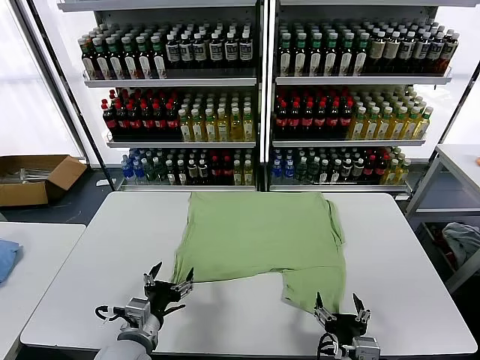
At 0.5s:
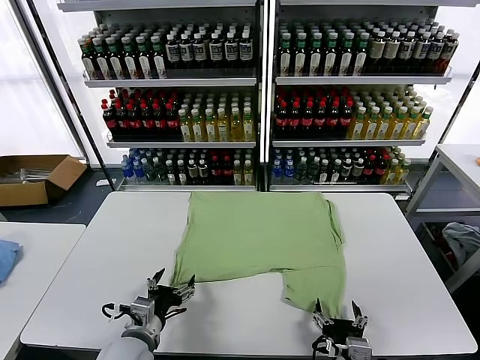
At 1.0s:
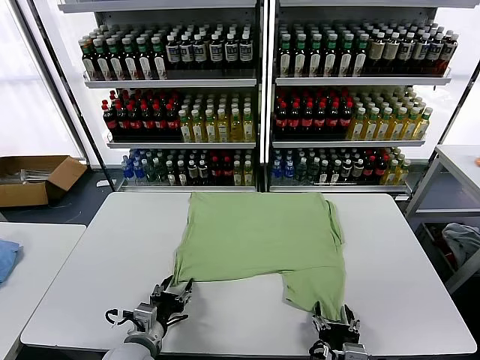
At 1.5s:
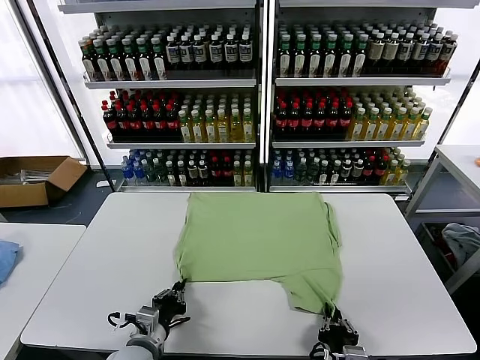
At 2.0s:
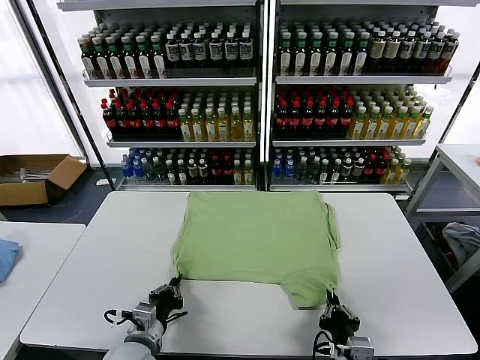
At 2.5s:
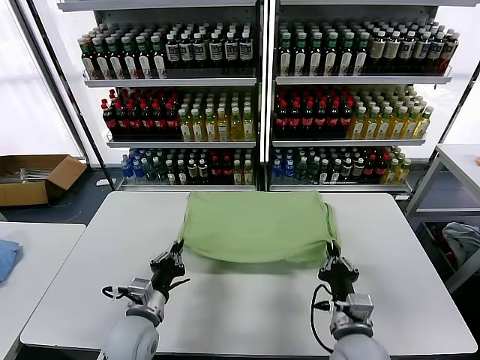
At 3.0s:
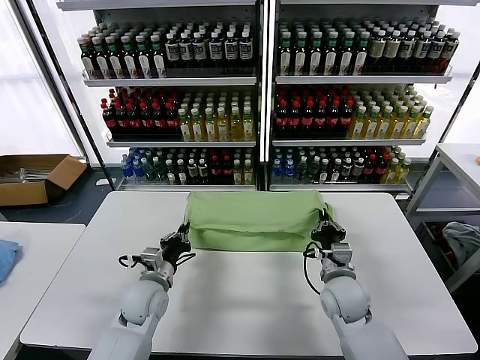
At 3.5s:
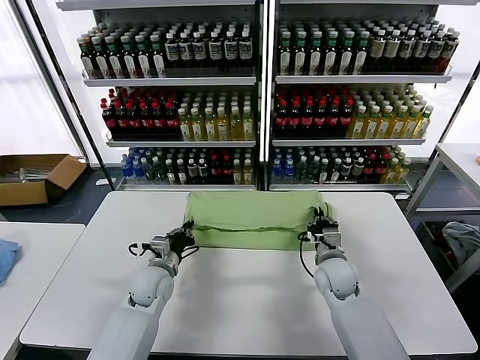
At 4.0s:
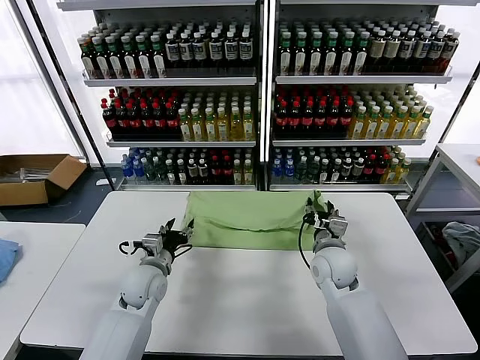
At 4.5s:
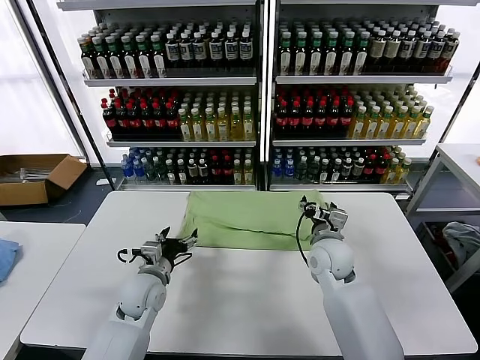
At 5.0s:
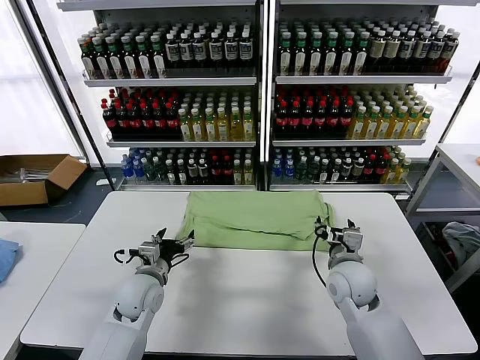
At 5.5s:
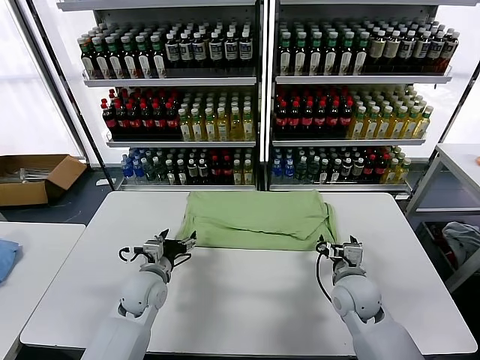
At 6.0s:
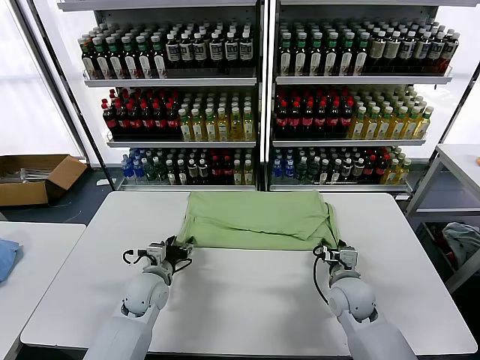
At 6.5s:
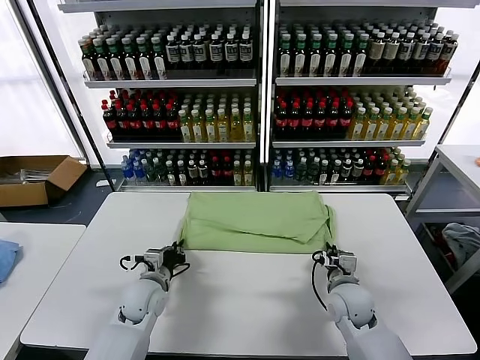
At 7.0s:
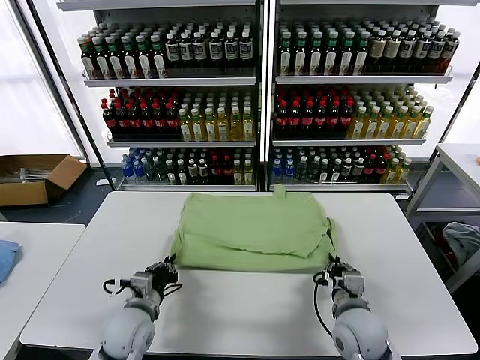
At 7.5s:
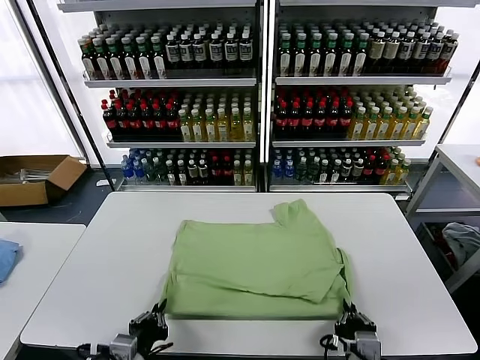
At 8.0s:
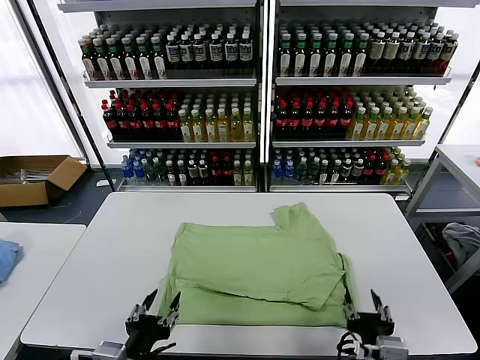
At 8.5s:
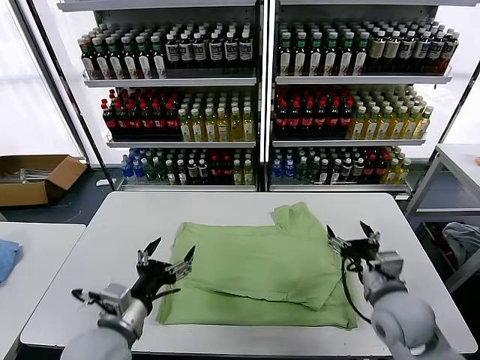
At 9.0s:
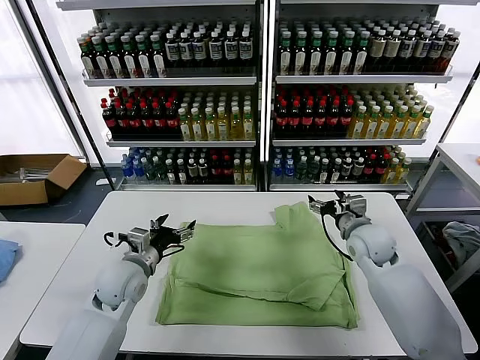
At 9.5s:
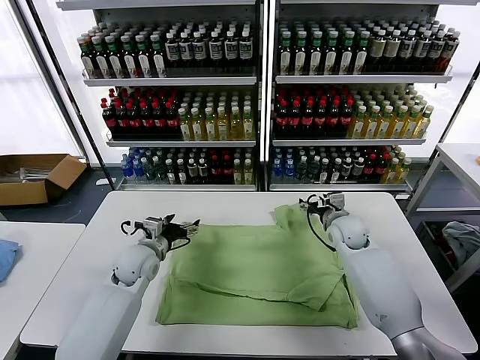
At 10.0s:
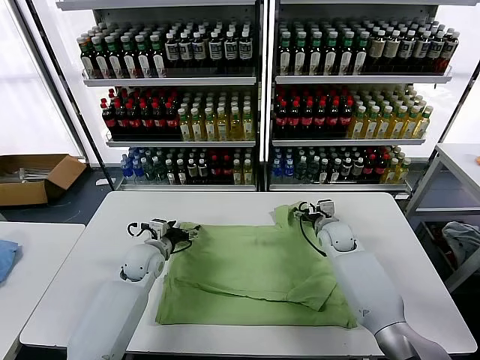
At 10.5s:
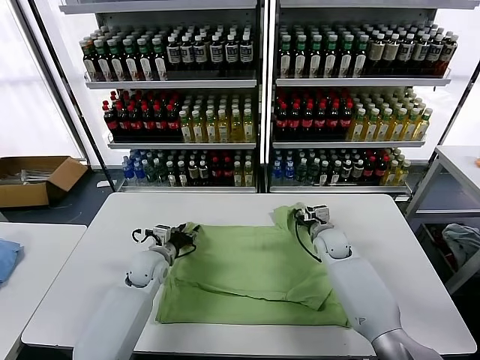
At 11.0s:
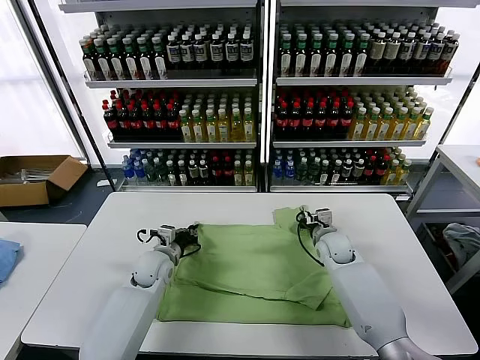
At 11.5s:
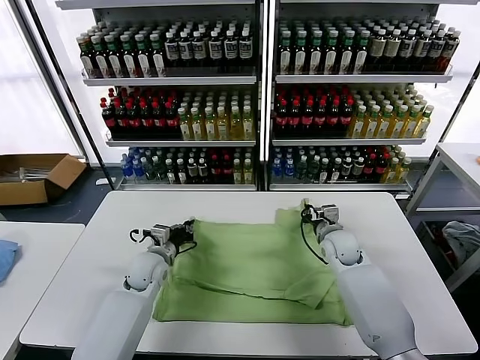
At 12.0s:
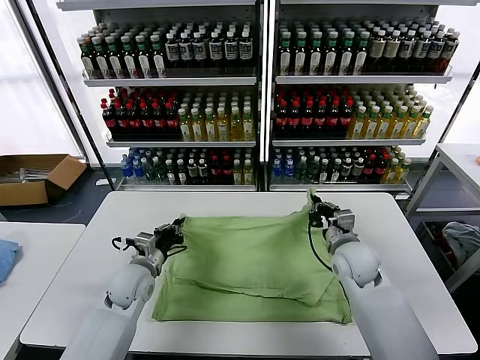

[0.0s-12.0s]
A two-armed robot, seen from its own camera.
Task of the whole recording: fold and organize the clothes.
Step, 0.0s to 1.5s: use both grippers simultaneously to clamp the lower edge of the clothing fabric.
Step, 2.0s to 7.5s: Drag the clothes downward with both gripper.
Step, 8.0s to 11.0s: use both grippers simultaneously to clamp the upper edge of the clothing fabric.
2.0s to 4.0s: The right gripper travels forward by some 25 cm, and opens its fingers; the left gripper travels forward by about 15 cm, and opens its fingers.
4.0s to 6.0s: The left gripper closes up, while the right gripper goes some 10 cm downward and backward, and closes up.
6.0s to 8.0s: The two grippers go approximately 25 cm backward and upward. The right gripper opens its fingers. Meanwhile the left gripper closes, then opens again.
8.0s to 10.0s: The grippers both shift forward by some 35 cm.
10.0s to 12.0s: The left gripper shifts about 5 cm backward, and closes, while the right gripper moves backward and upward, roughly 15 cm, and closes its fingers.

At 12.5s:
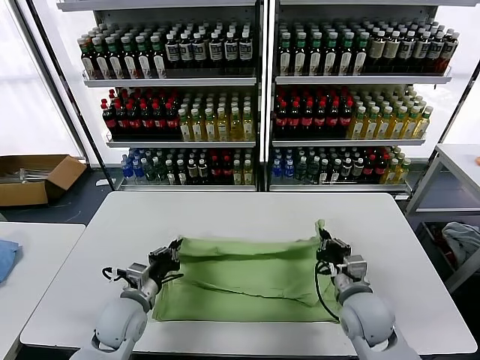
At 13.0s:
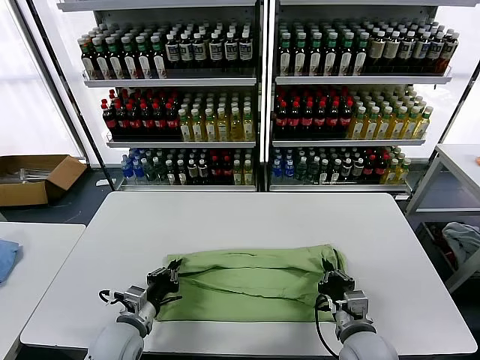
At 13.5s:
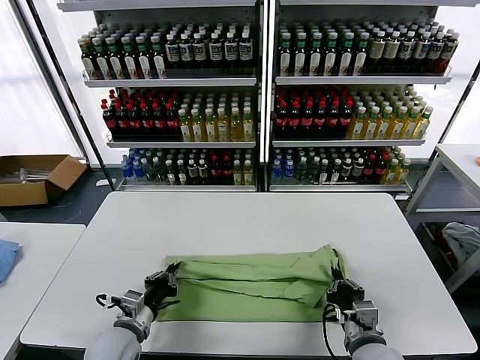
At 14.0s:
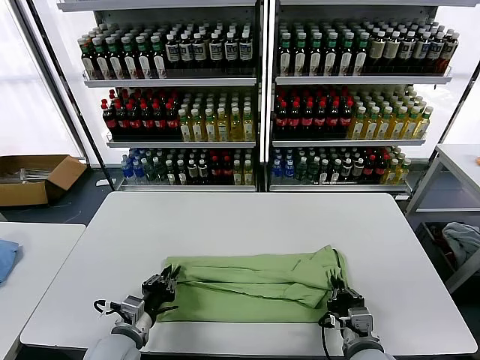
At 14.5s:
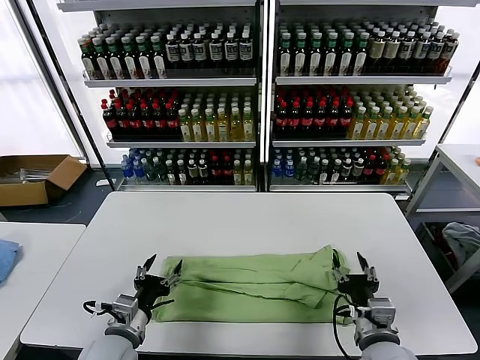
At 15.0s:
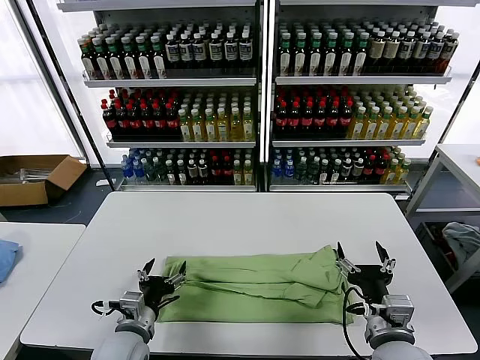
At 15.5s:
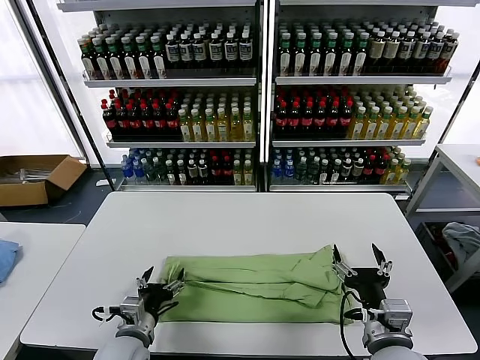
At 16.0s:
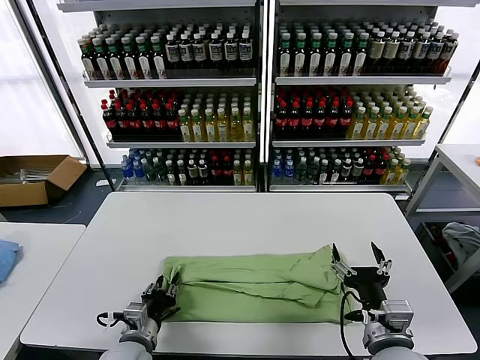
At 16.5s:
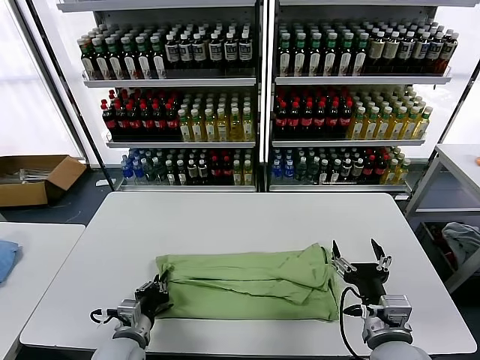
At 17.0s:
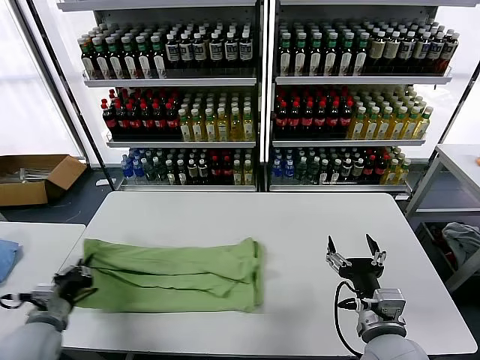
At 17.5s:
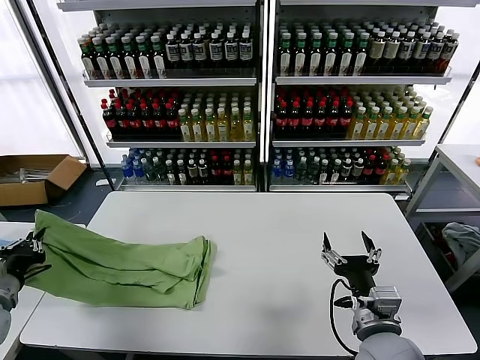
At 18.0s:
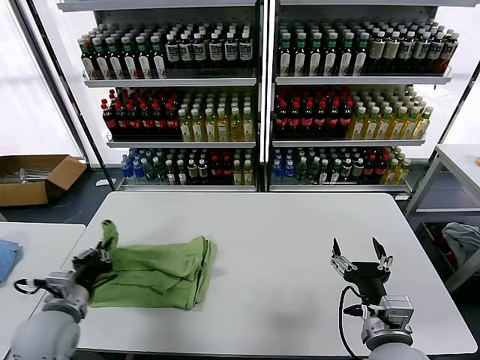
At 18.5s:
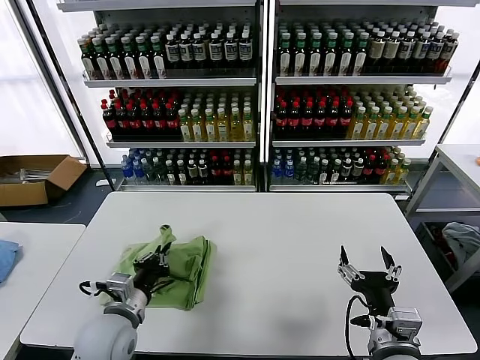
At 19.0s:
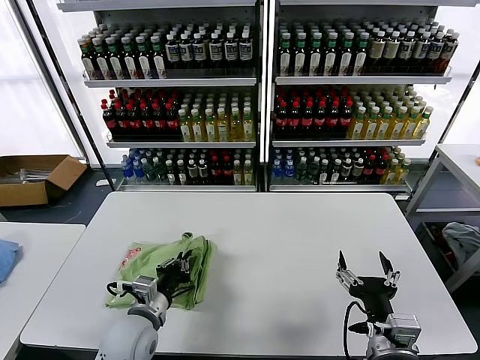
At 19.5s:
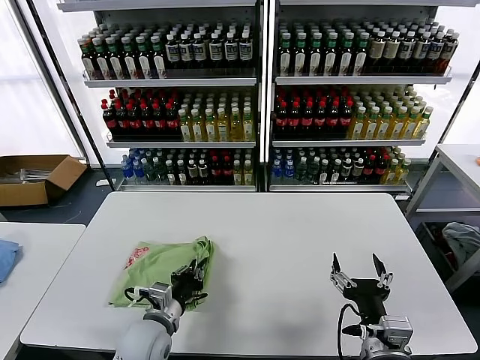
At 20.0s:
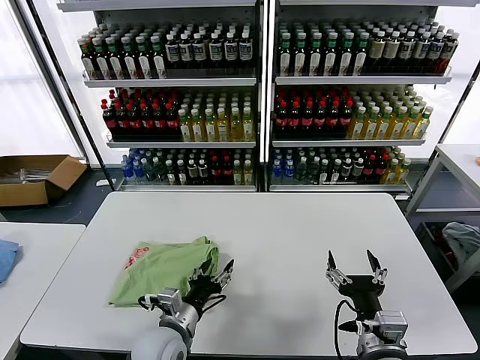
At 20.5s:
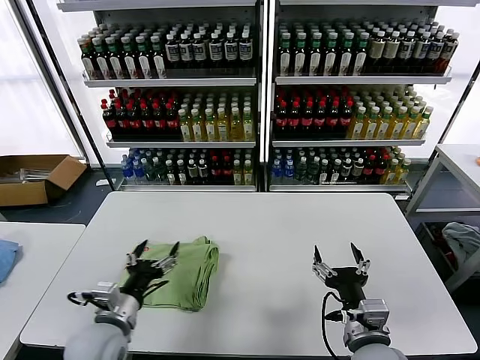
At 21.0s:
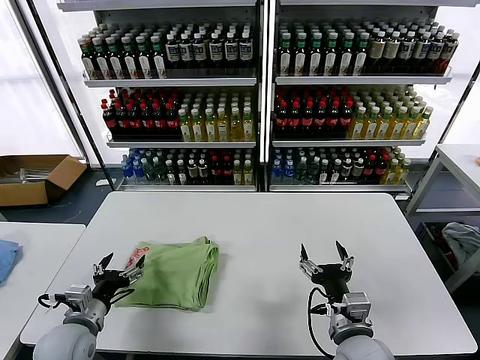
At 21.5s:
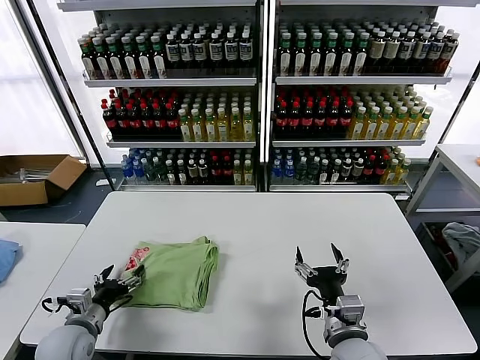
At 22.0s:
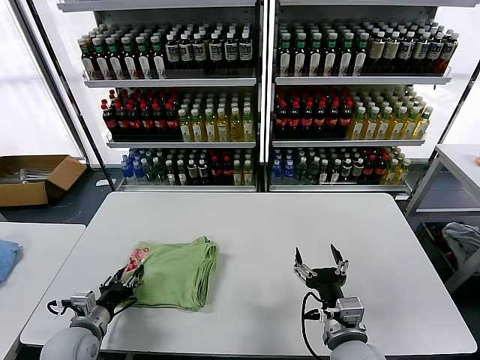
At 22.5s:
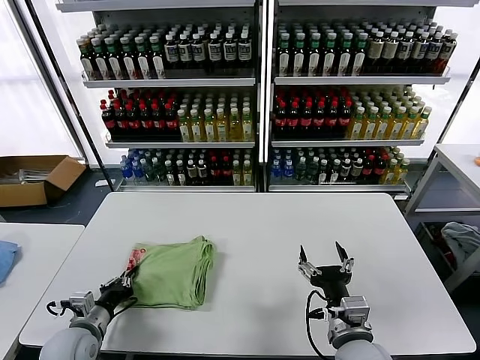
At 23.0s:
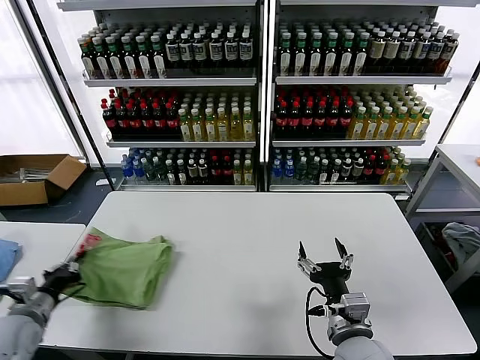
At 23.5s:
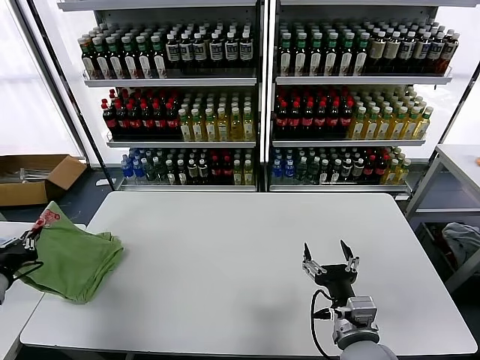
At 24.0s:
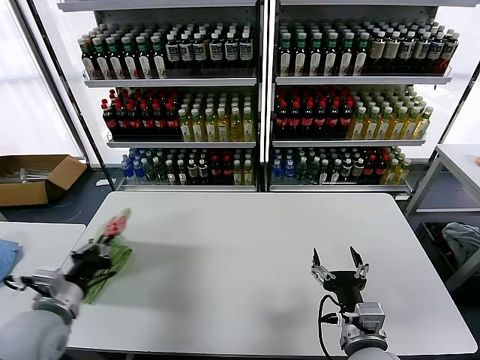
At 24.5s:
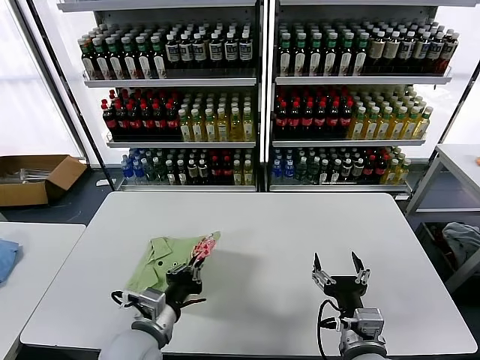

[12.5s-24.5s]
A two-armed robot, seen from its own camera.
Task of the whole recording: fold and organize the clothes.
Step, 12.5s to 14.5s: use both grippers to drag the upper edge of the fabric backward and fold it over the lower edge.
Step, 15.0s to 16.0s: use the left gripper to clamp the left edge of the fabric.
Step, 16.5s to 20.0s: use the left gripper to drag the left edge of the fabric to the left and folds it over the right edge.
12.5s to 14.5s: Both grippers travel together backward, about 10 cm. The left gripper opens up. The right gripper opens.
14.5s to 16.5s: The left gripper moves roughly 5 cm, and closes its fingers.
16.5s to 18.5s: The left gripper is displaced upward by about 10 cm, and reaches approximately 20 cm to the left, then returns.
18.5s to 20.5s: The left gripper moves approximately 10 cm to the right and comes back, and opens up.
20.5s to 22.5s: The left gripper moves to the left and downward, approximately 15 cm, and closes.
22.5s to 24.5s: The left gripper is displaced to the right and upward by some 20 cm.

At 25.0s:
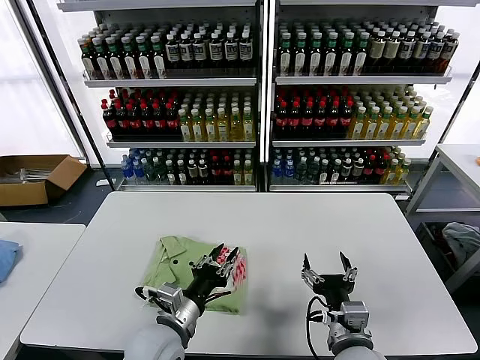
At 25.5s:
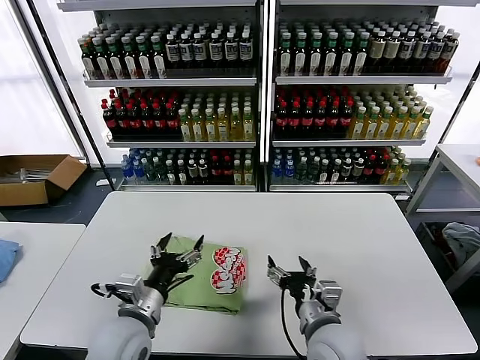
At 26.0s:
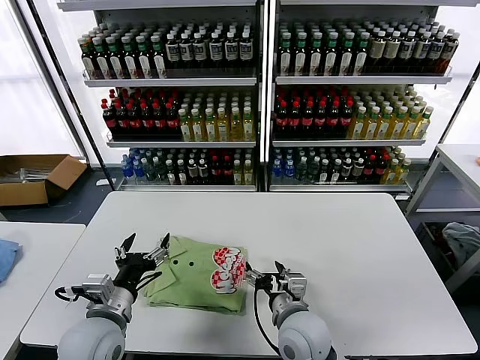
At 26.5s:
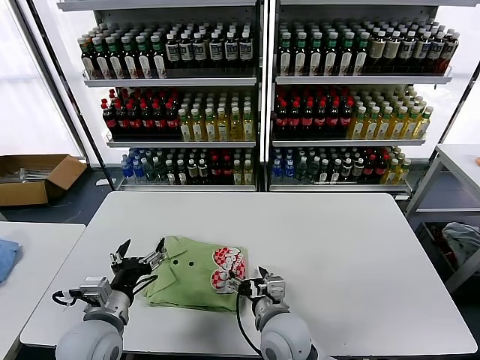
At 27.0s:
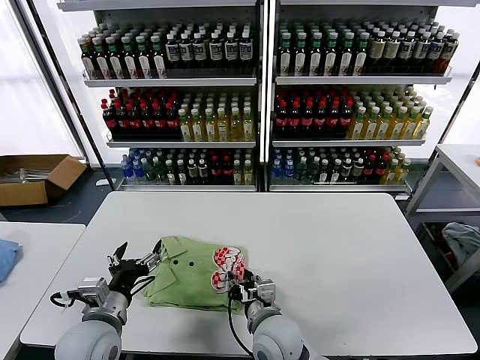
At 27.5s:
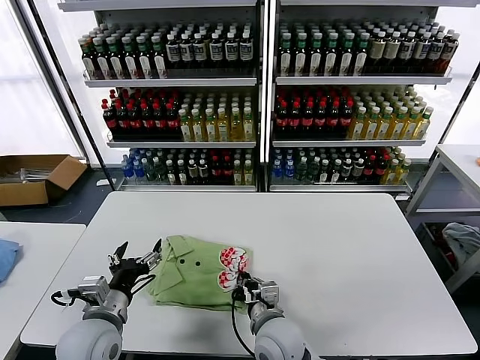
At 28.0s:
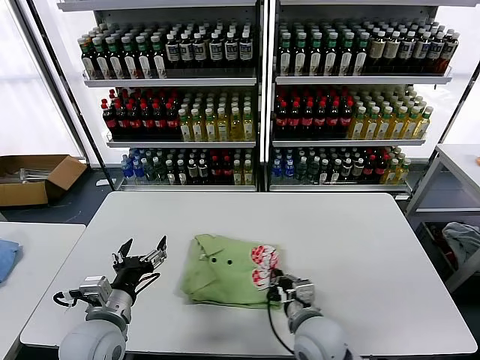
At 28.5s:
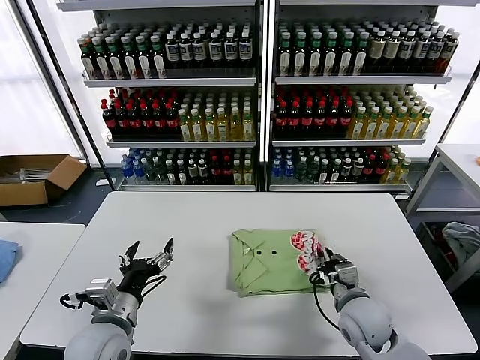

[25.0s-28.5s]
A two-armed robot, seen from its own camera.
Task of the whole recording: fold and organize the clothes.
25.0s to 27.0s: The left gripper heads to the left, covering some 10 cm, and opens up; the right gripper travels to the left and forward by roughly 15 cm, and closes up.
27.0s to 28.5s: The right gripper is displaced to the right by some 20 cm, and closes.
